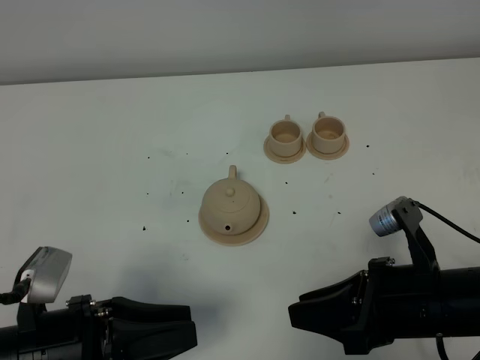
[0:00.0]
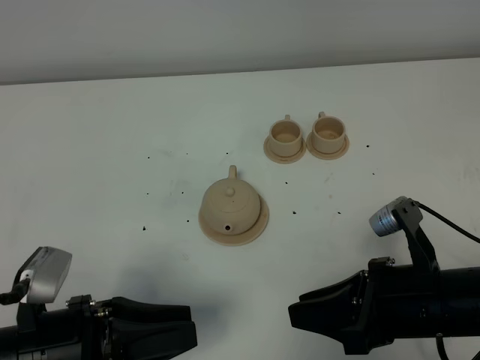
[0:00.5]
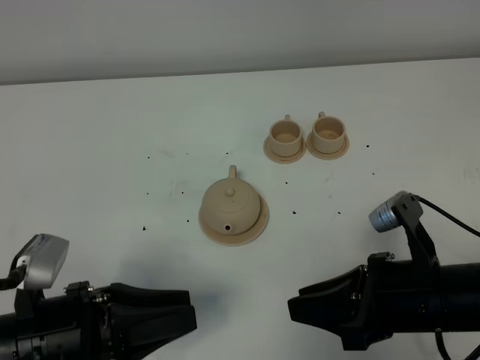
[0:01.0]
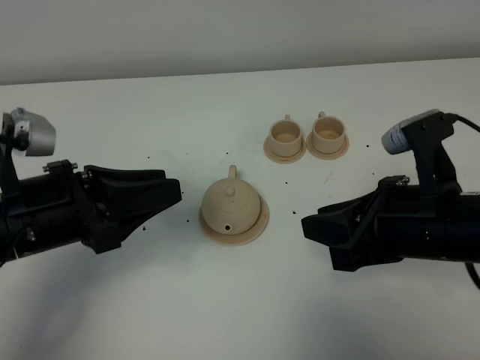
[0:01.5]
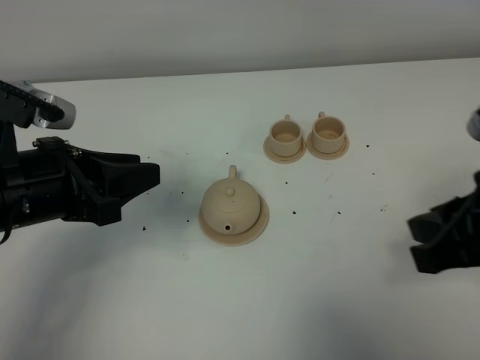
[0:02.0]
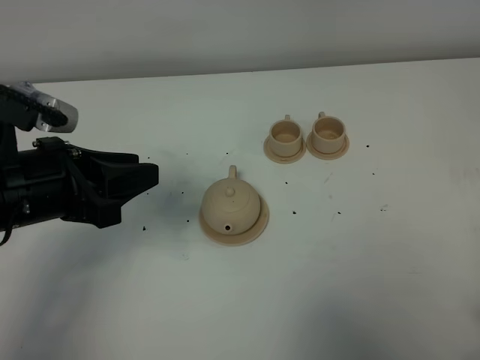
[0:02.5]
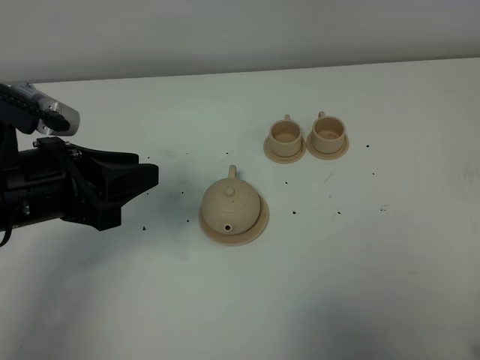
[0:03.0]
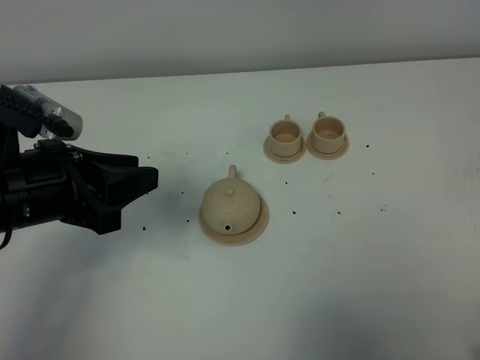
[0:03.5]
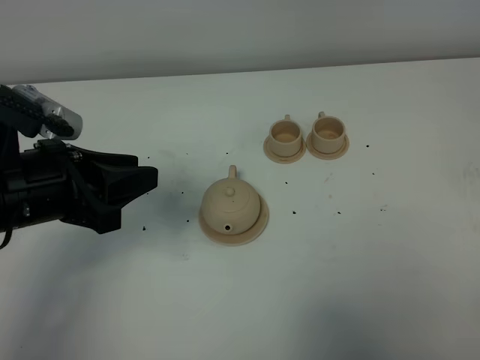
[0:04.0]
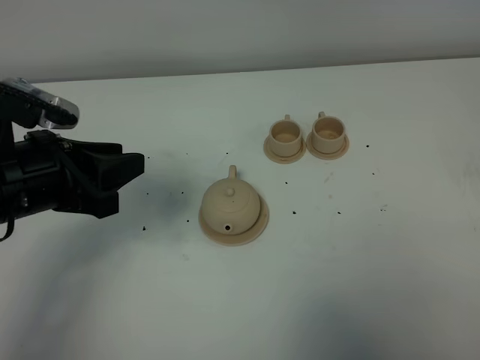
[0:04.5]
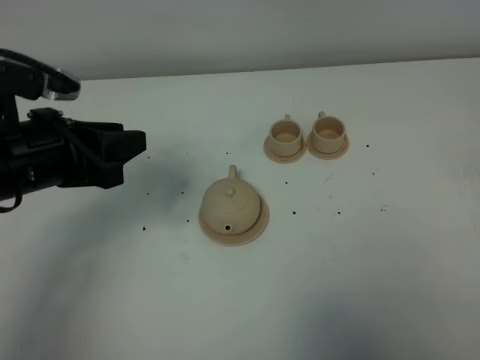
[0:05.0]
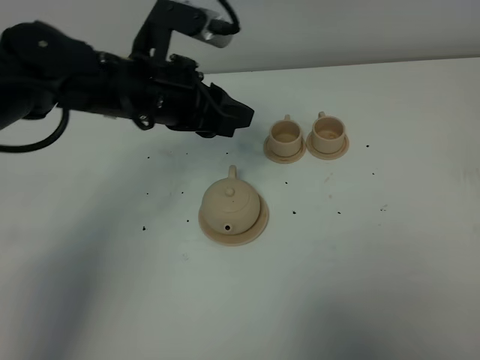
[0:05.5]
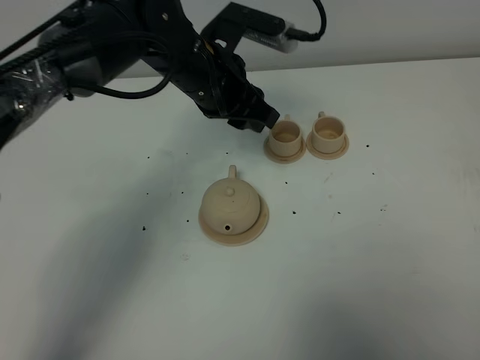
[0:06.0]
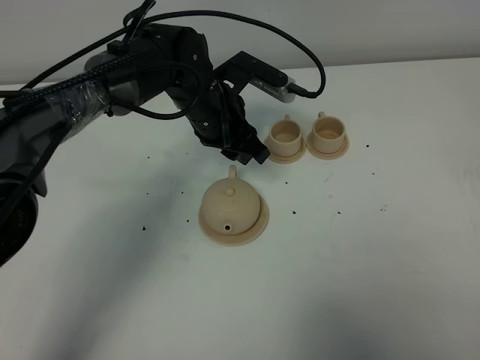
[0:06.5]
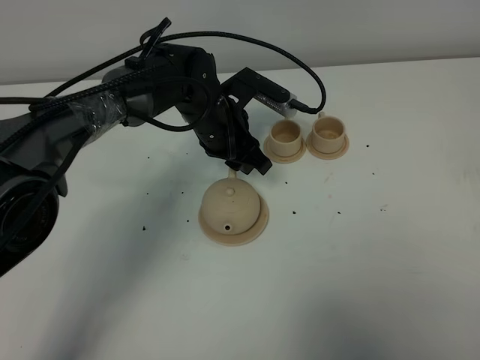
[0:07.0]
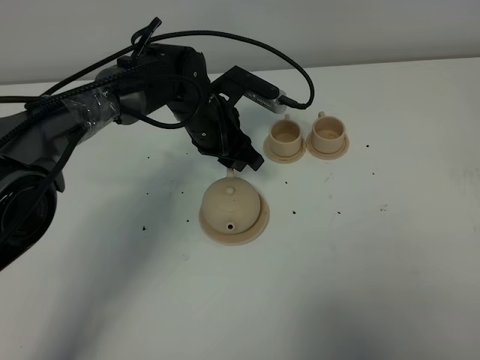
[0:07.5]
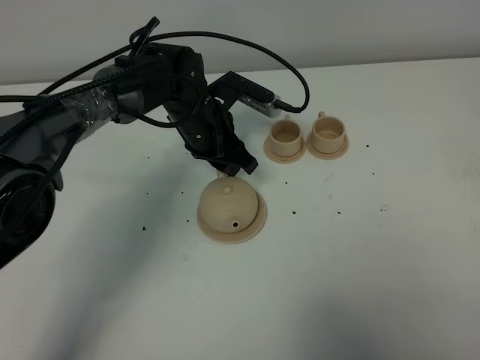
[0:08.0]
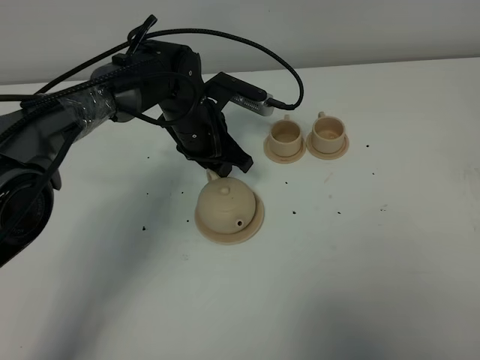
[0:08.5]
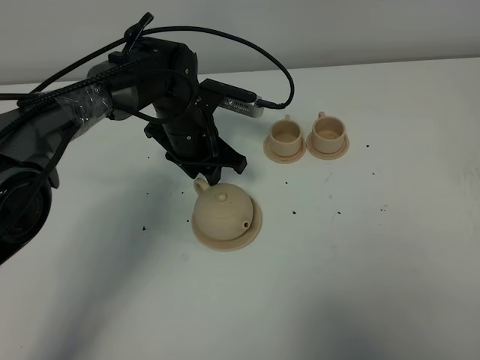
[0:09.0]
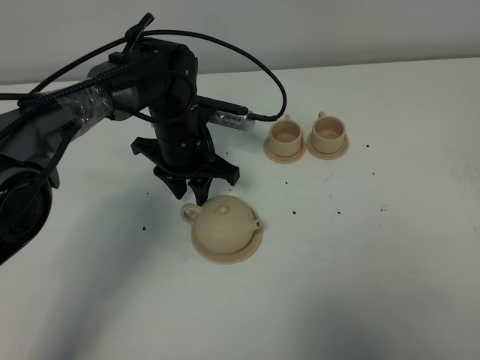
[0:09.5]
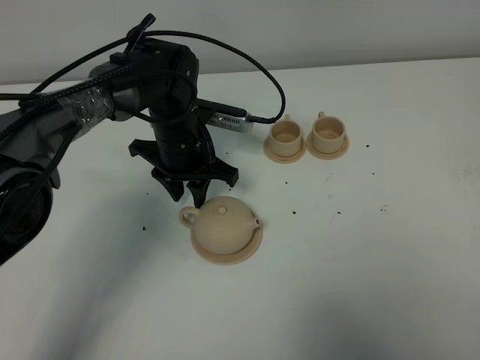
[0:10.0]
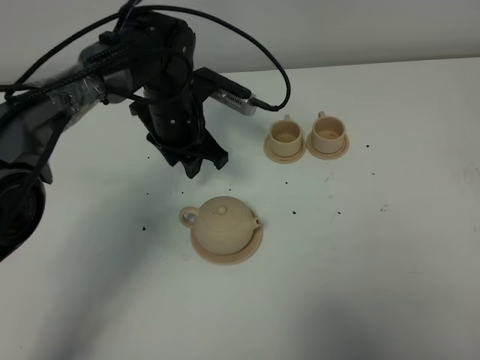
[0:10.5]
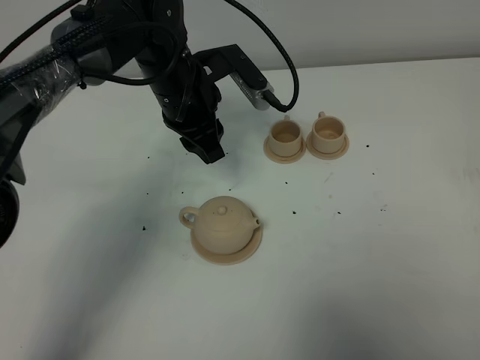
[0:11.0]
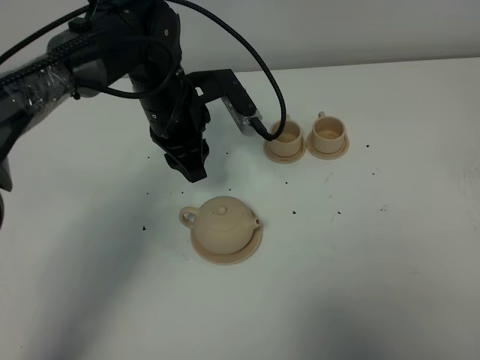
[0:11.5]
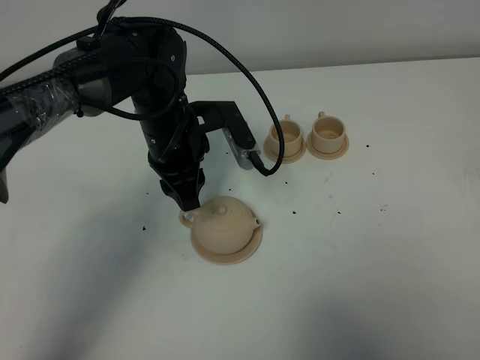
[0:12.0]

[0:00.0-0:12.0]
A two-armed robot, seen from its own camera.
Task of the whole recording: grasp the brown teapot and pour the tea into the two brown teacups one by one, put the brown teapot back in its original place.
0.0 to 2.0 s: The right gripper travels upward and to the right by about 15 cm. Meanwhile the left gripper moves forward and upward, about 15 cm.
2.0 to 4.0 s: The right gripper goes about 15 cm backward and to the right.
4.0 to 6.0 s: The left gripper shifts some 25 cm forward and to the right.
6.0 to 8.0 s: The left gripper goes about 10 cm downward.
10.0 to 12.0 s: The left gripper shifts by roughly 5 cm.

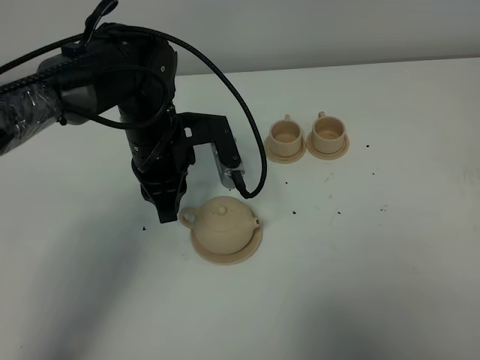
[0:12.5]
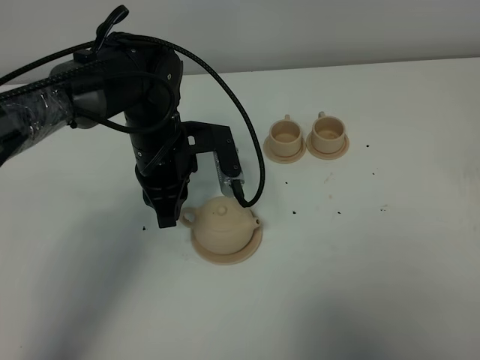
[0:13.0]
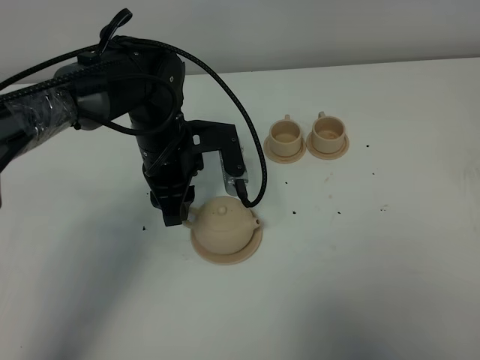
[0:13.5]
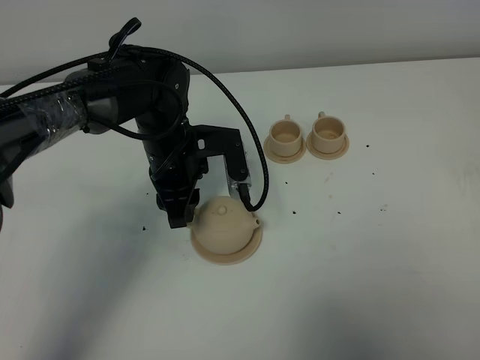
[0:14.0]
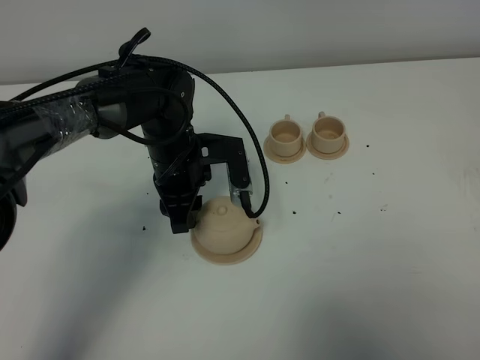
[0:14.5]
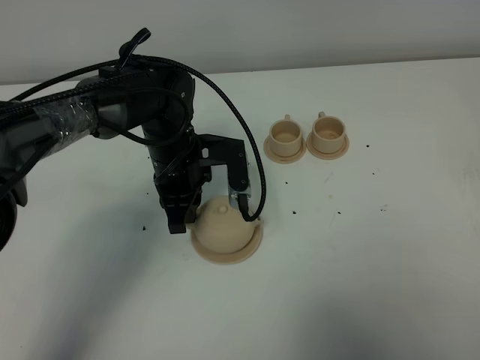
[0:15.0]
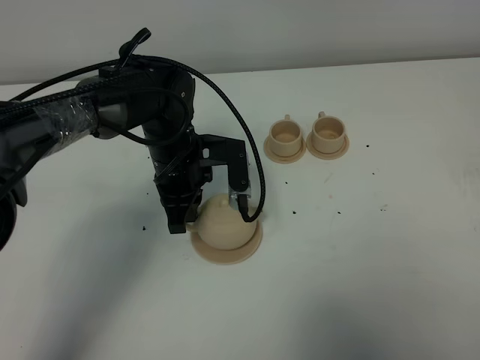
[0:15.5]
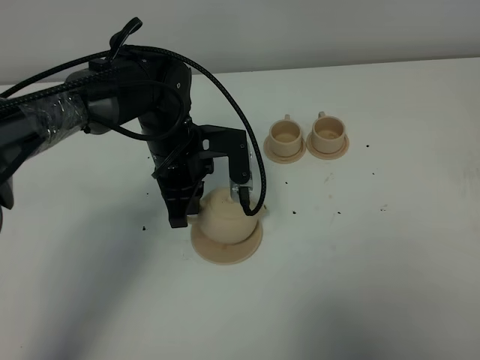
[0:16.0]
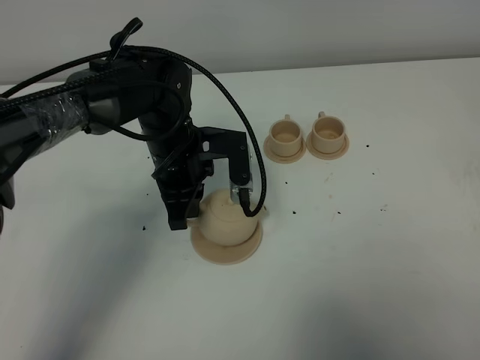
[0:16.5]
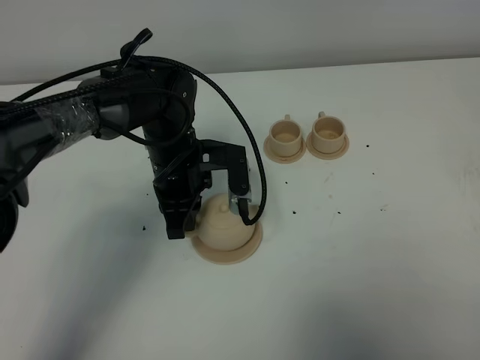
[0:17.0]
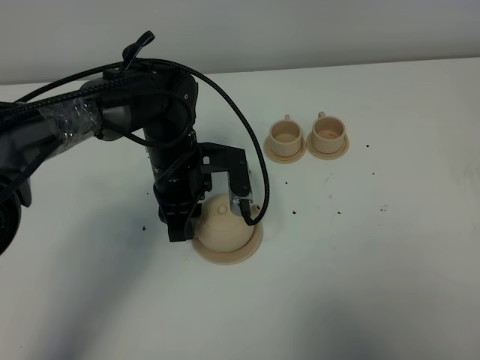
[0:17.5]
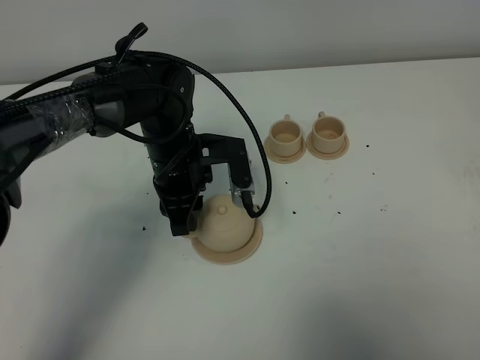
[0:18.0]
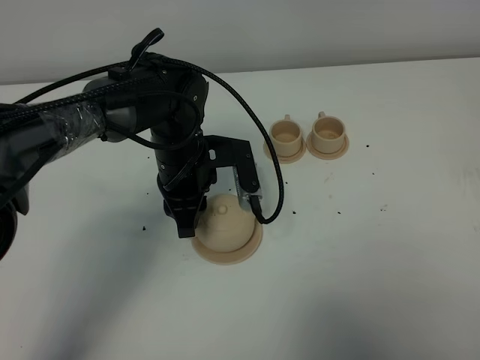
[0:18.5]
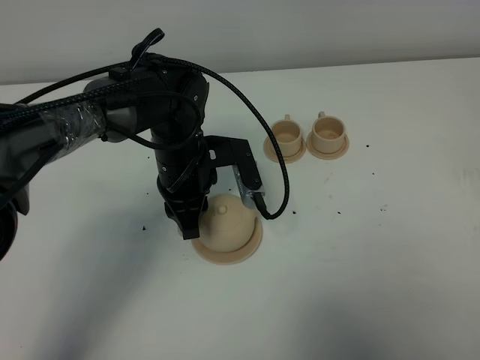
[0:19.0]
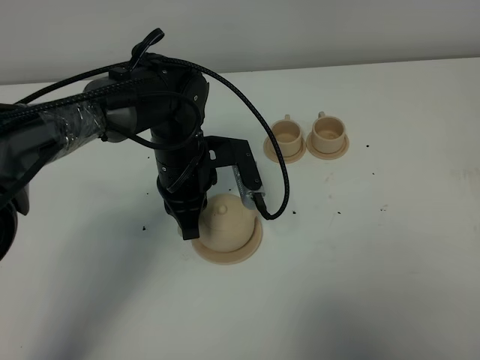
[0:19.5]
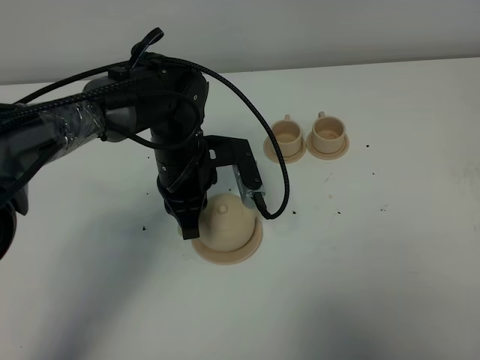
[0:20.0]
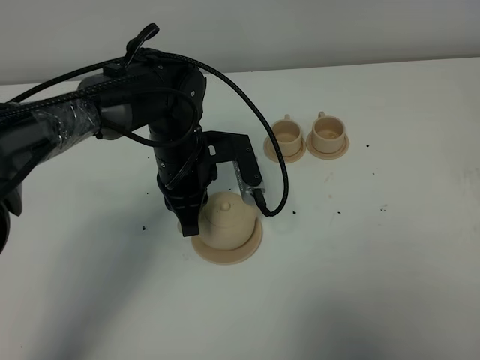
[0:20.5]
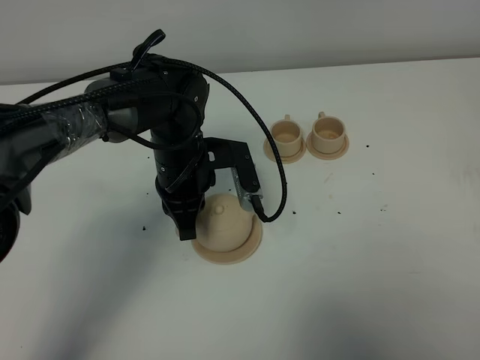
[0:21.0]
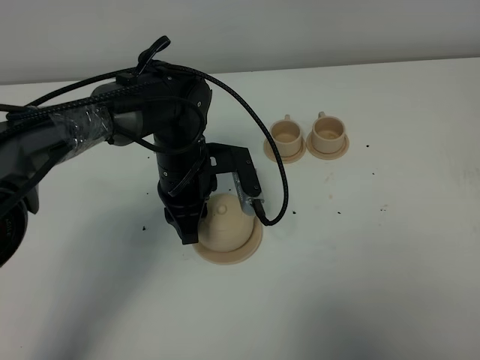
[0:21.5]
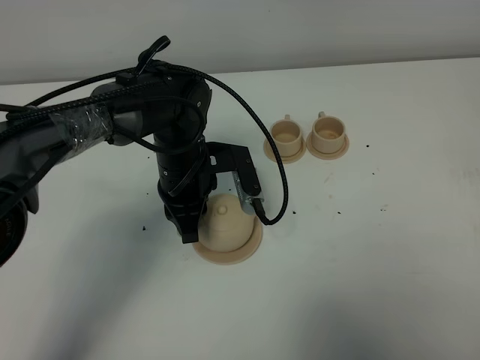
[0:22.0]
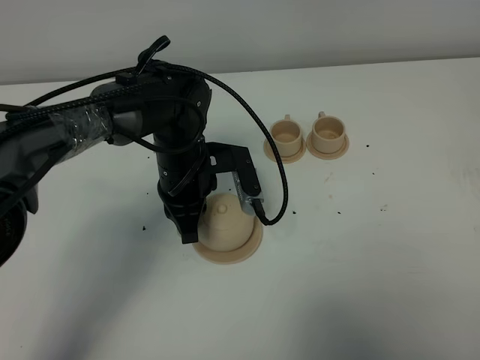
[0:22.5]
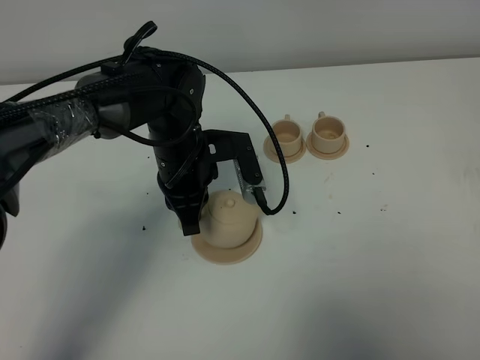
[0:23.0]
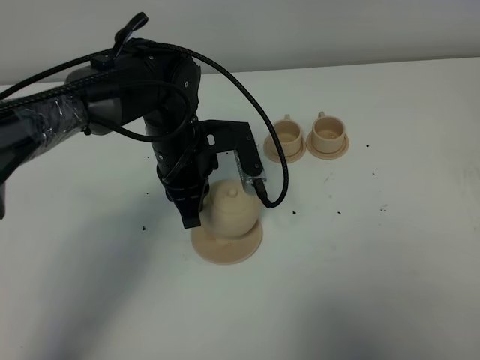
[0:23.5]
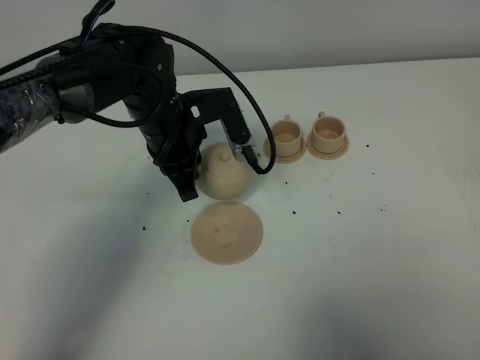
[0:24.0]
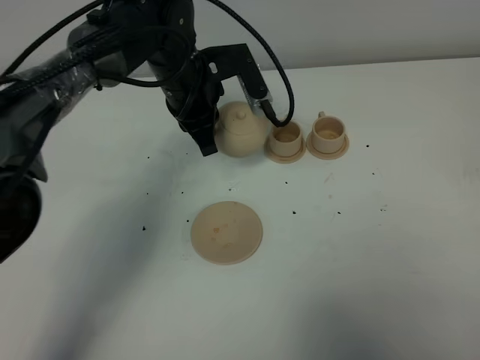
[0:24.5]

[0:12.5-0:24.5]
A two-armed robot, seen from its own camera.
Task of the whole recording: grasp the brown teapot and pour the tea into the two brown teacups one by one, put the brown teapot back in its original place.
Step, 12.5 to 23.0 s: Pick up the teapot with the left gripper.
12.5 to 14.5 s: The left gripper ends up about 5 cm from where it was, and opens its fingers.
14.5 to 16.5 s: The left gripper closes.
16.5 to 18.5 s: The left gripper opens its fingers.
18.5 to 20.5 s: The left gripper closes.
20.5 to 22.5 s: The left gripper opens, then closes once more.
22.5 to 24.5 s: The left gripper heads forward and upward, covering roughly 10 cm.

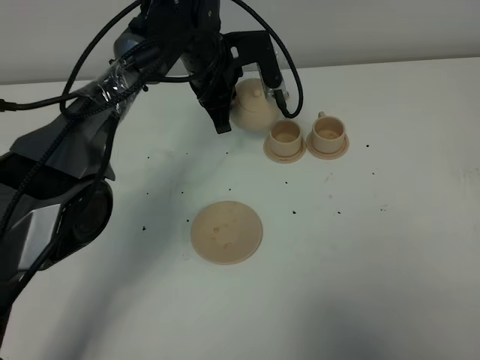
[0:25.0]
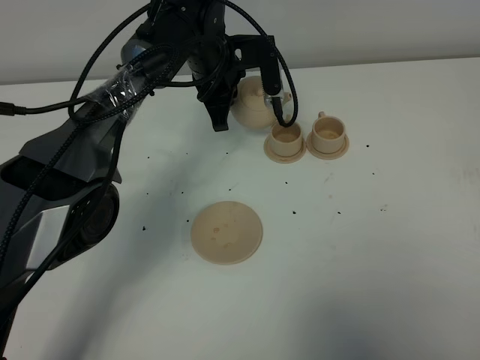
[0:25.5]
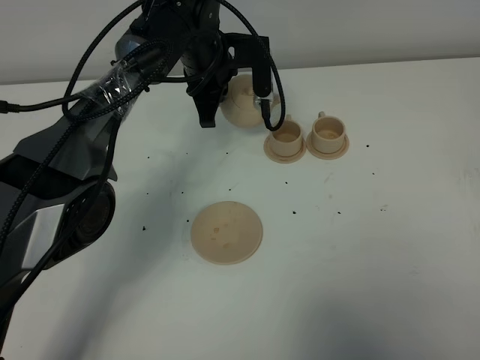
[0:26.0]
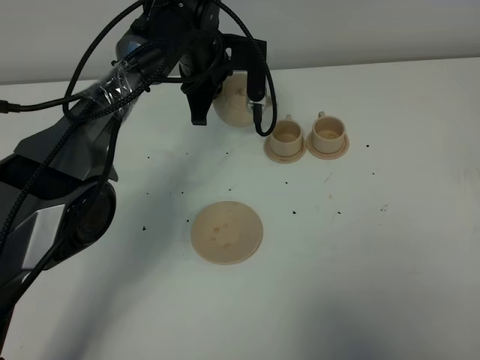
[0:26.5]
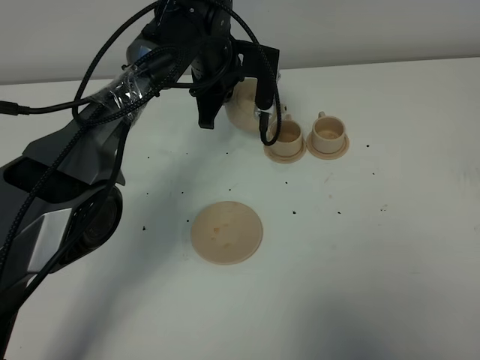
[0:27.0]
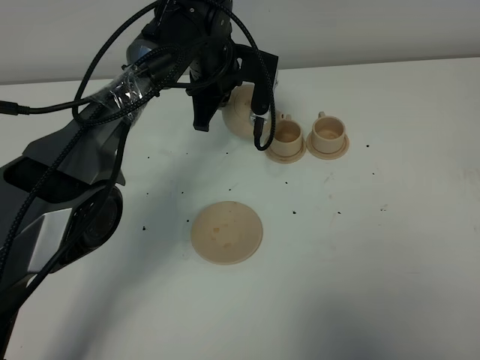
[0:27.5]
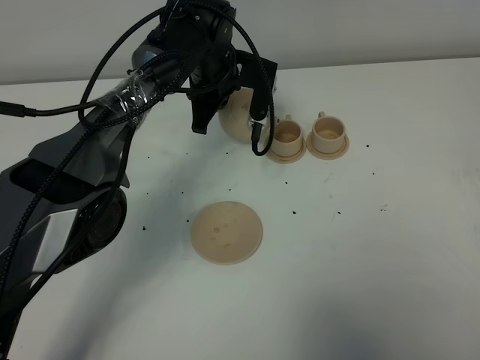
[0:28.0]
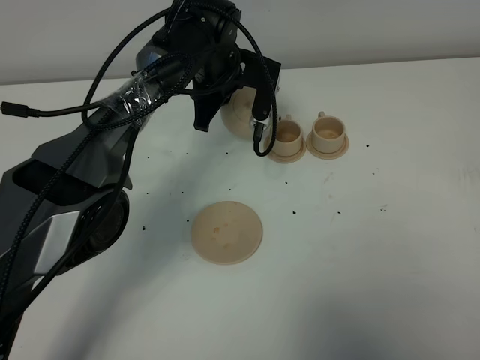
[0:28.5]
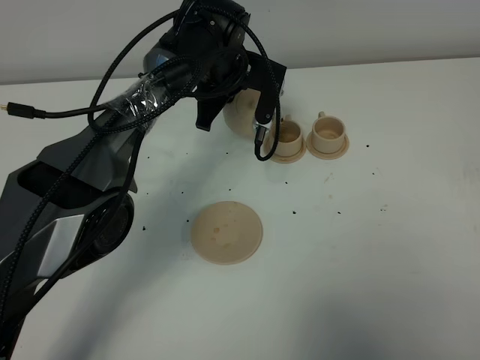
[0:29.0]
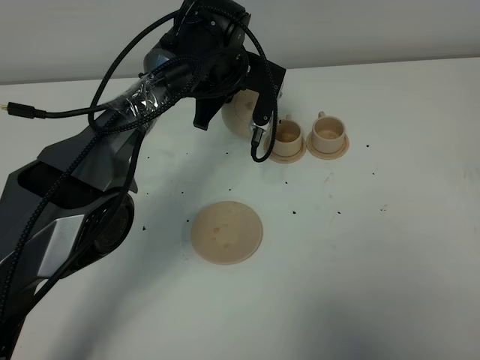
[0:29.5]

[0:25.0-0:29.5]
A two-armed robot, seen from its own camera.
Task of the whole recording: grasp the brown teapot and pour the tea into the two brown teacups one by one, put the brown teapot back in its original place.
27.0 to 29.5 s: The grippers make only small movements.
